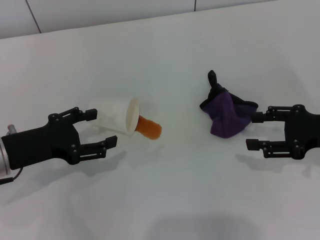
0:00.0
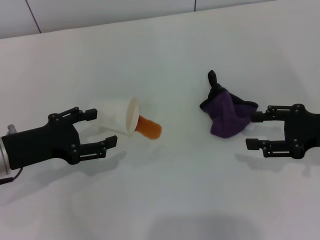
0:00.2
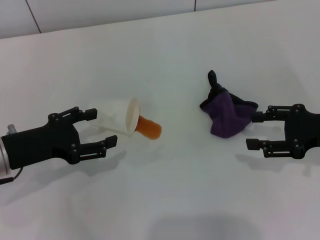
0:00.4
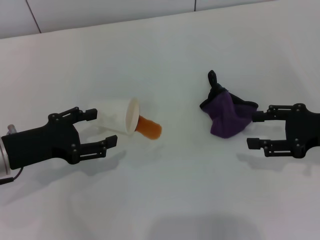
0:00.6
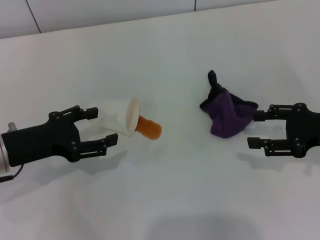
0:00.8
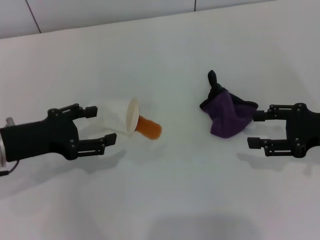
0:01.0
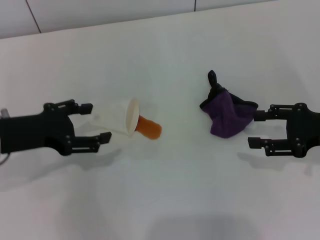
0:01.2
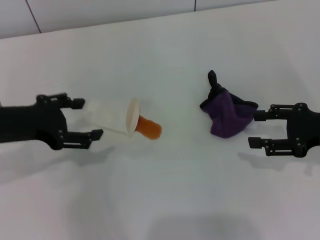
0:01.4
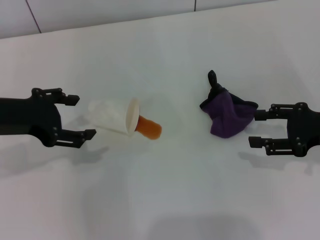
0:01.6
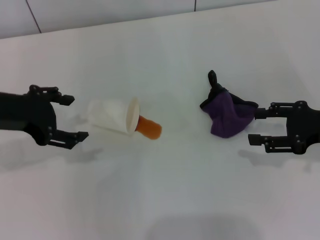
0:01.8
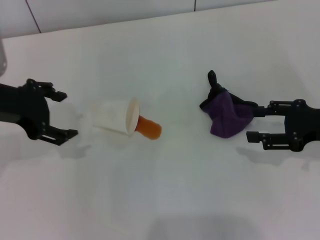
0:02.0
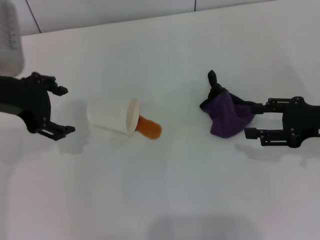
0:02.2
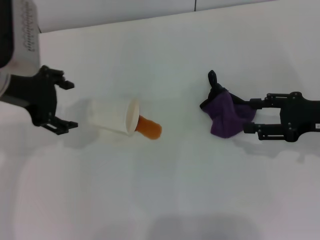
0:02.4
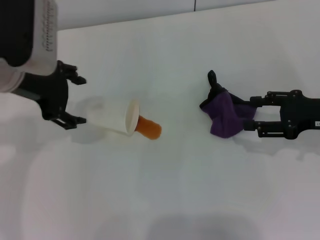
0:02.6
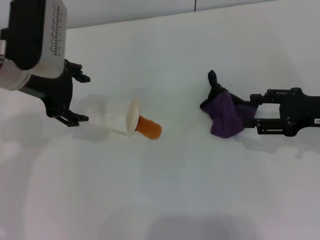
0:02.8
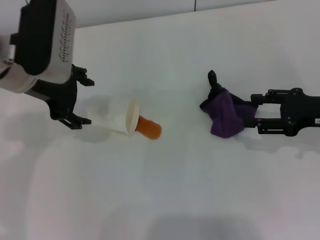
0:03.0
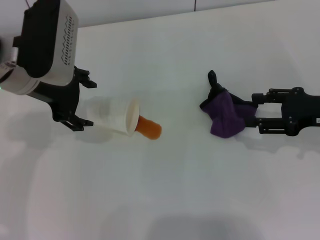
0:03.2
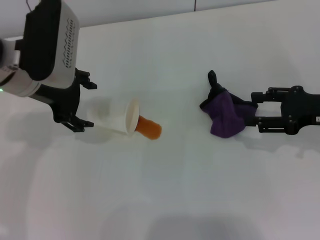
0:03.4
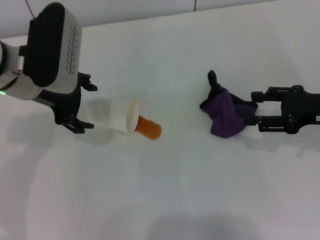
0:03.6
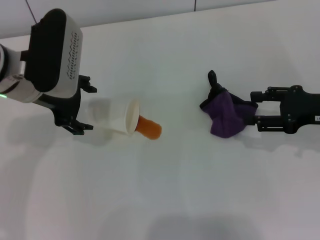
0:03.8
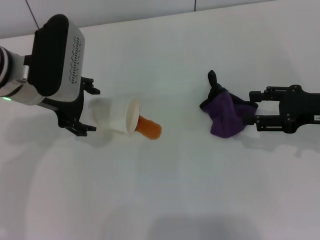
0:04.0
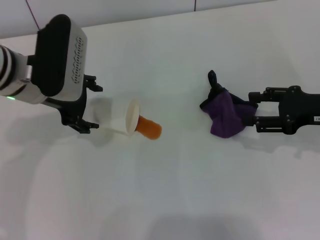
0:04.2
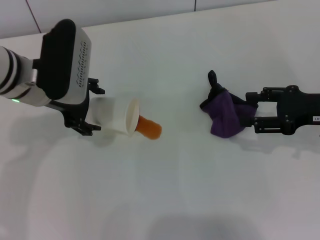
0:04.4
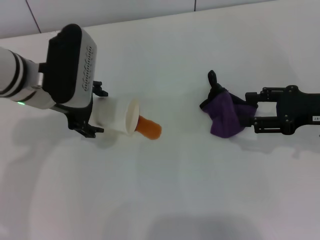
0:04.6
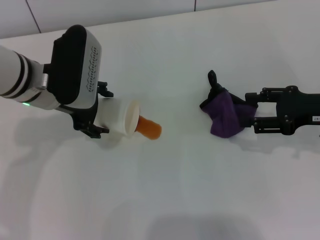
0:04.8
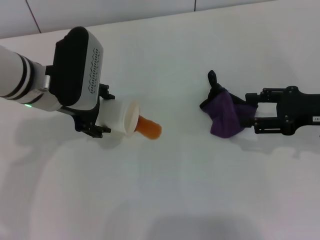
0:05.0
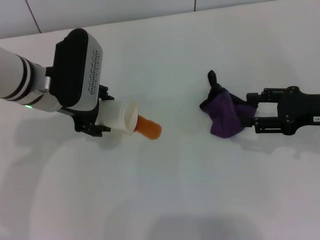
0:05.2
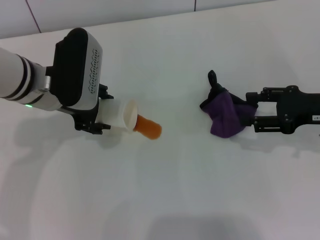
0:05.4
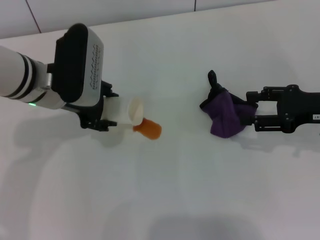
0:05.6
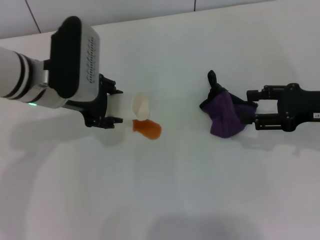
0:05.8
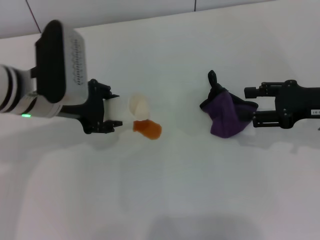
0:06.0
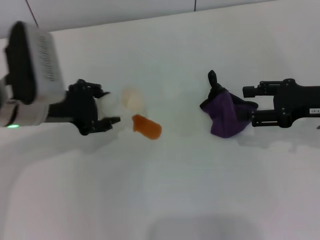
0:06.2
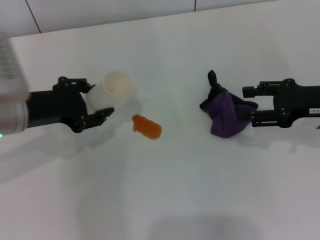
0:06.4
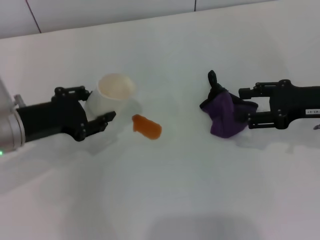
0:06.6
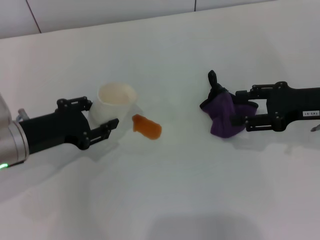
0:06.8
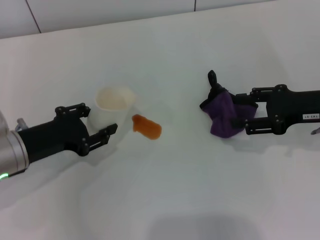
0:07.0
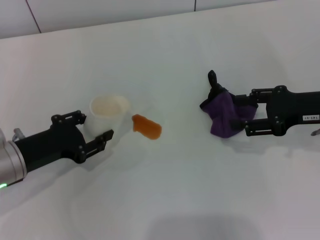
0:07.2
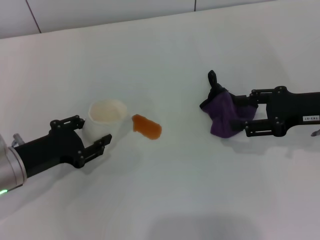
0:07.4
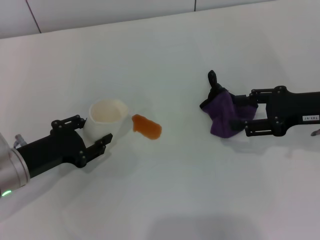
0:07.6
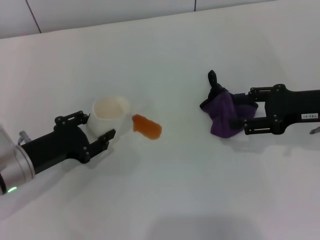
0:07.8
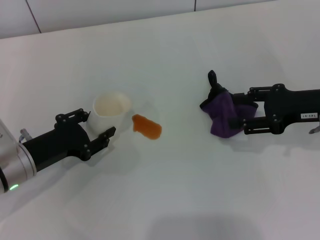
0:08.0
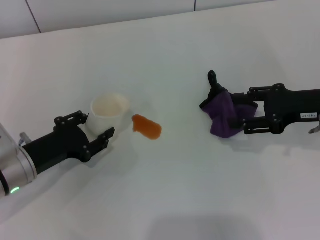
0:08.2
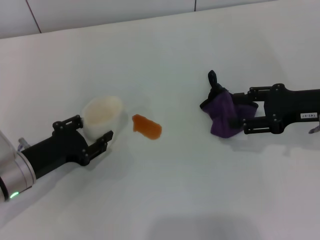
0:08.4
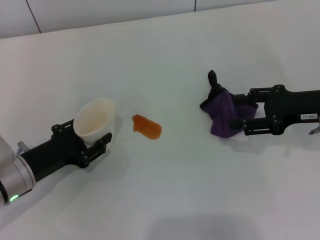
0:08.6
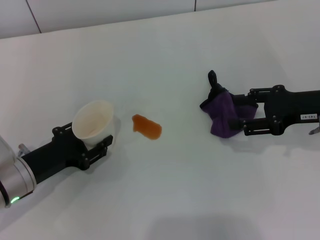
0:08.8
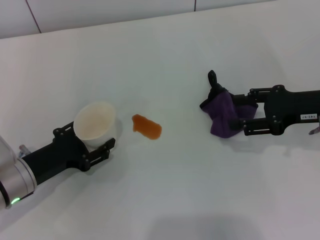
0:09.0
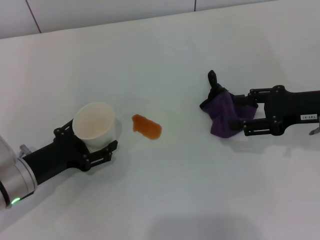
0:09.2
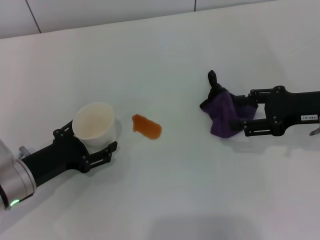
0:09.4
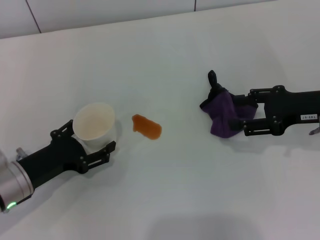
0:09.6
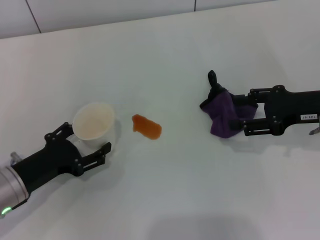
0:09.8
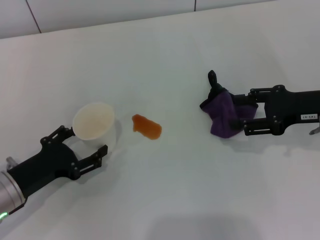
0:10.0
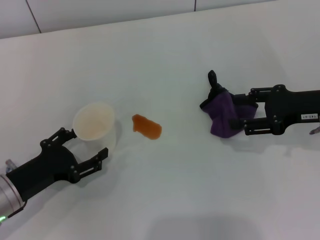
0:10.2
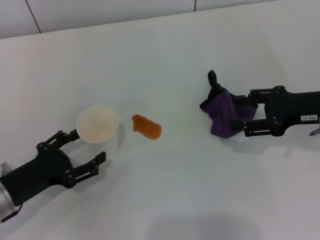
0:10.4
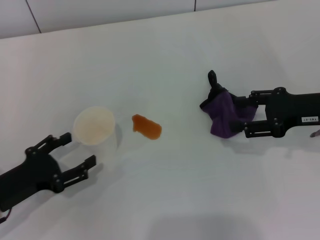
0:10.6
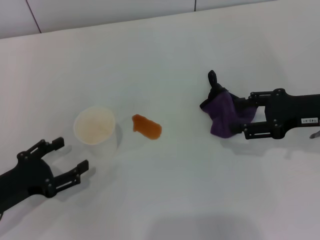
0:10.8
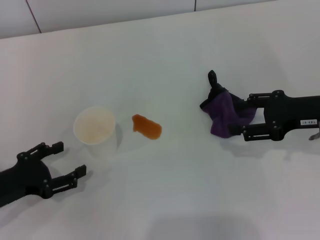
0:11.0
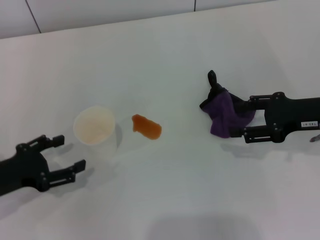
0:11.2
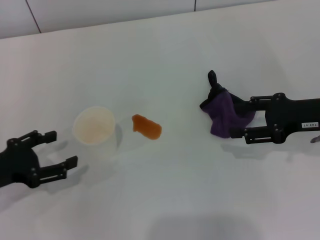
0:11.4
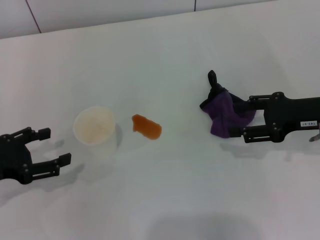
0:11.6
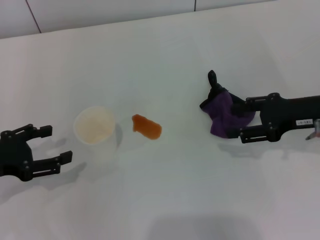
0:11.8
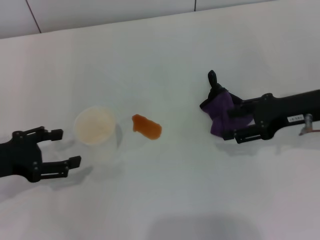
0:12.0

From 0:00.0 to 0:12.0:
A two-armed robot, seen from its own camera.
Step, from 0:00.0 to 0:05.4: Grasp the paper cup with the left gripper.
From 0:00.0 to 0:01.6: The left gripper is displaced upward by approximately 10 cm.
From 0:01.6 to 0:03.0: The left gripper moves to the right and forward, about 10 cm.
From 0:03.0 to 0:04.4: The grippers stay close to where they were, moving slightly.
From 0:04.4 to 0:06.0: The left gripper closes up.
From 0:06.0 to 0:07.6: The left gripper moves downward, backward and to the left, about 15 cm.
From 0:07.6 to 0:09.0: The grippers stay close to where they were, moving slightly.
From 0:09.0 to 0:10.4: The left gripper opens.
From 0:10.4 to 0:12.0: The left gripper moves upward, some 5 cm.

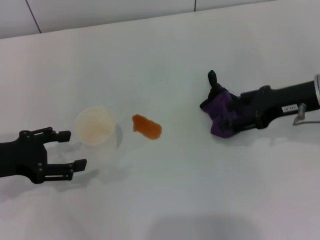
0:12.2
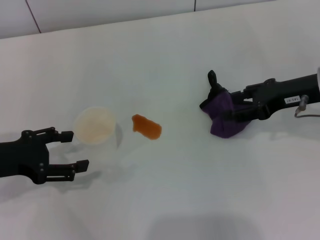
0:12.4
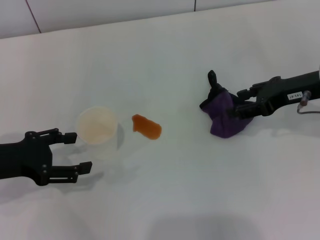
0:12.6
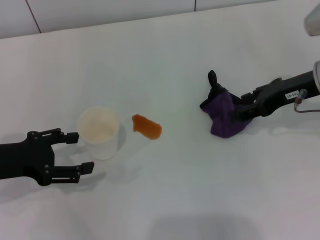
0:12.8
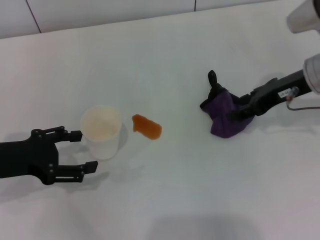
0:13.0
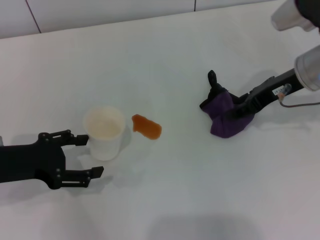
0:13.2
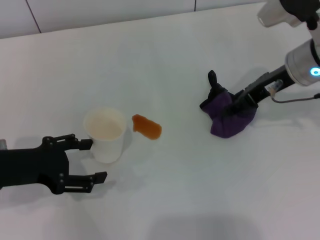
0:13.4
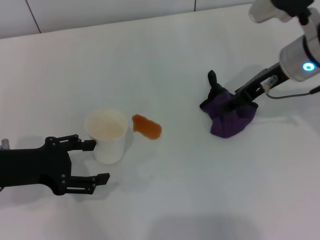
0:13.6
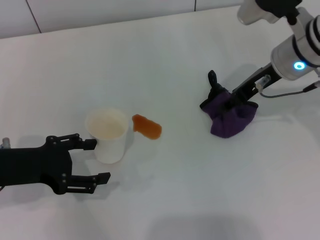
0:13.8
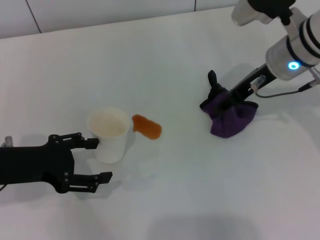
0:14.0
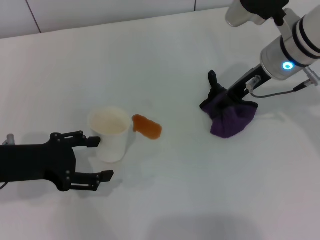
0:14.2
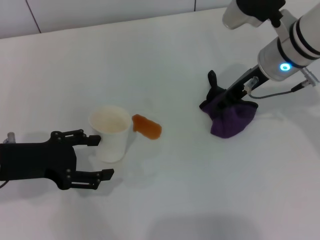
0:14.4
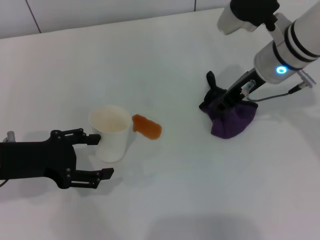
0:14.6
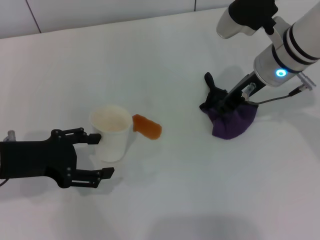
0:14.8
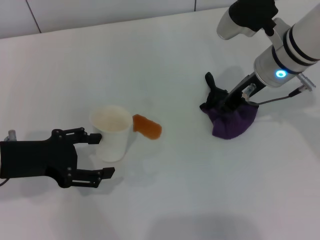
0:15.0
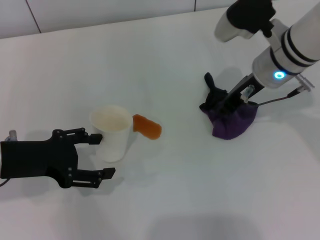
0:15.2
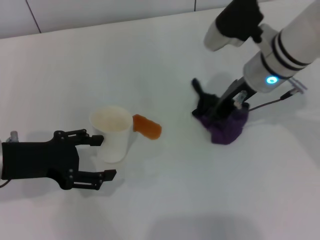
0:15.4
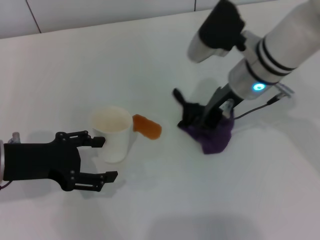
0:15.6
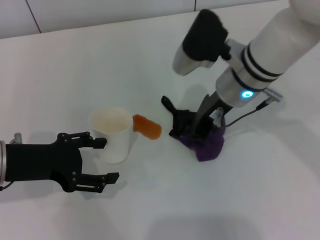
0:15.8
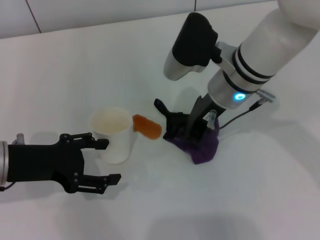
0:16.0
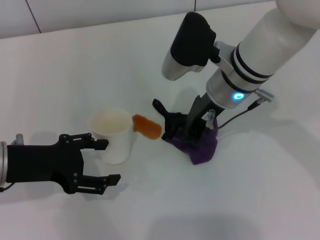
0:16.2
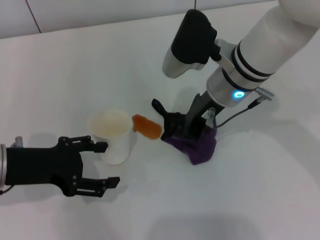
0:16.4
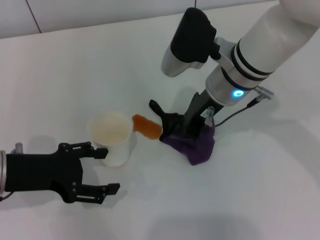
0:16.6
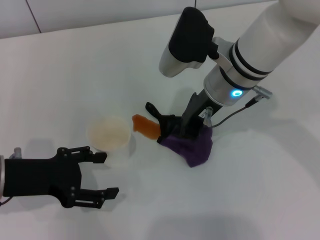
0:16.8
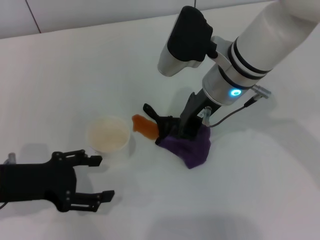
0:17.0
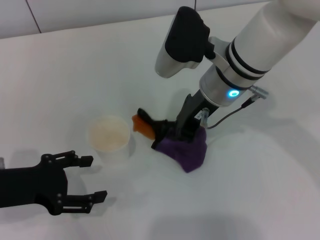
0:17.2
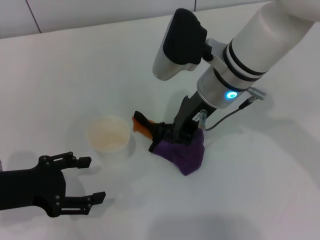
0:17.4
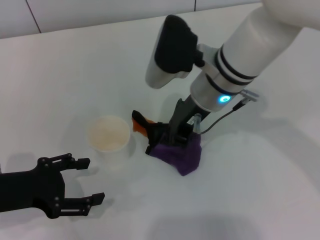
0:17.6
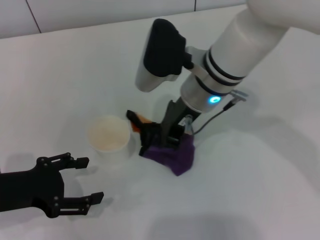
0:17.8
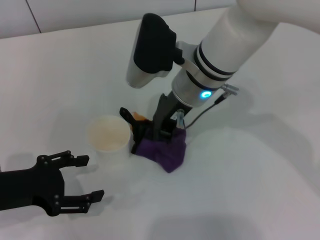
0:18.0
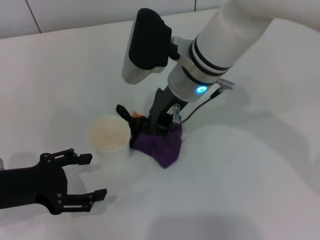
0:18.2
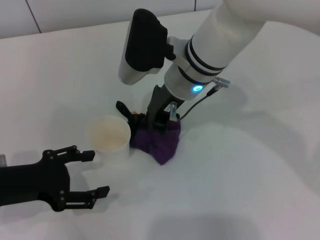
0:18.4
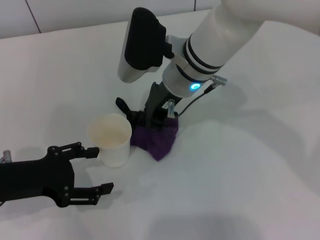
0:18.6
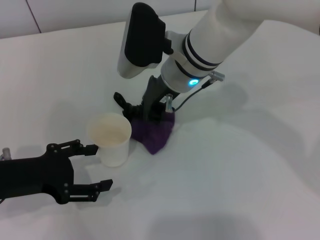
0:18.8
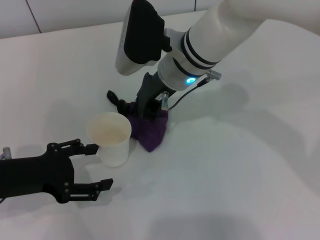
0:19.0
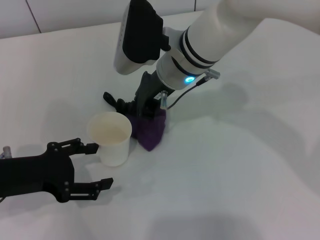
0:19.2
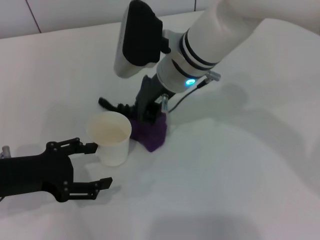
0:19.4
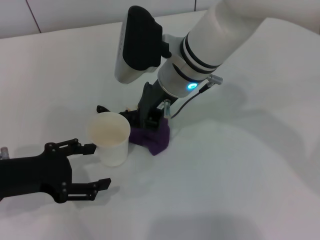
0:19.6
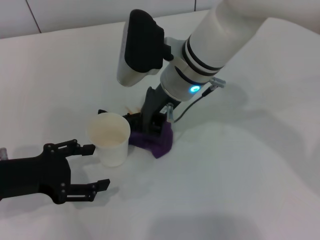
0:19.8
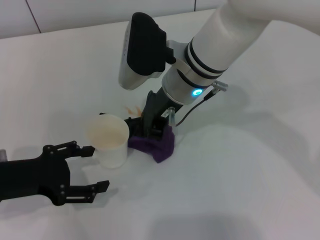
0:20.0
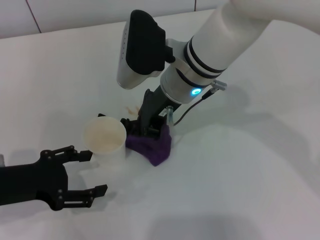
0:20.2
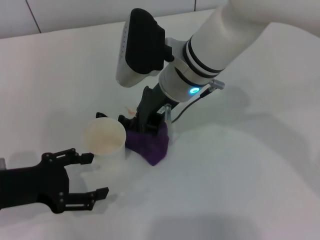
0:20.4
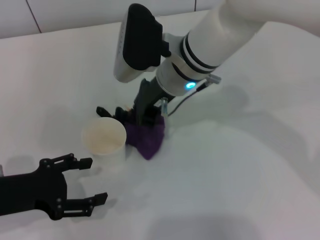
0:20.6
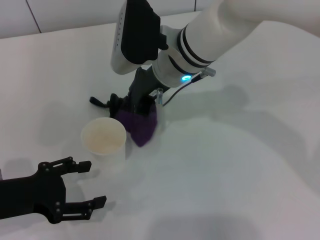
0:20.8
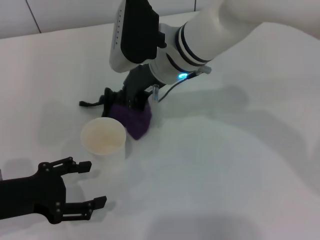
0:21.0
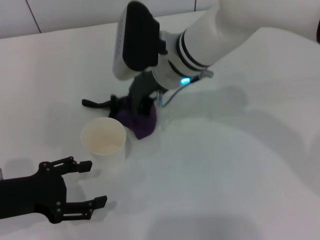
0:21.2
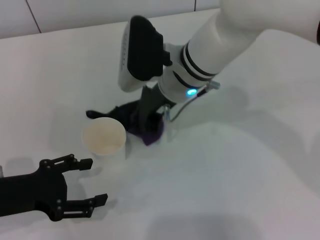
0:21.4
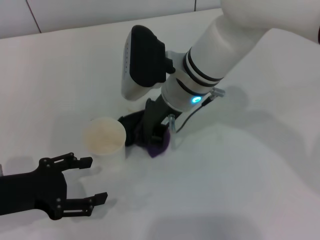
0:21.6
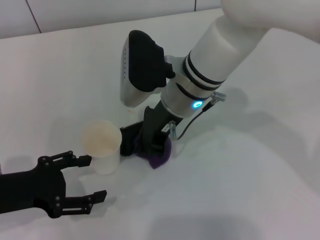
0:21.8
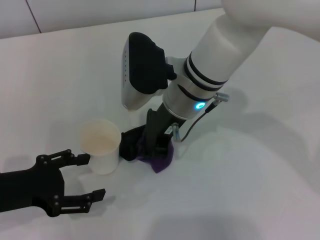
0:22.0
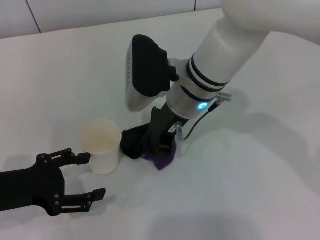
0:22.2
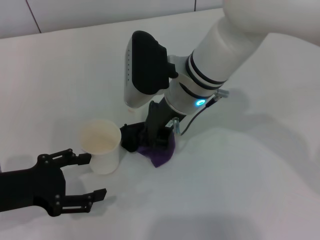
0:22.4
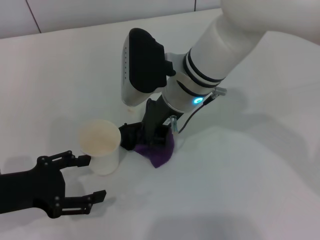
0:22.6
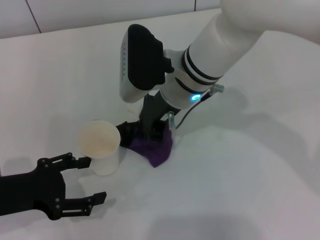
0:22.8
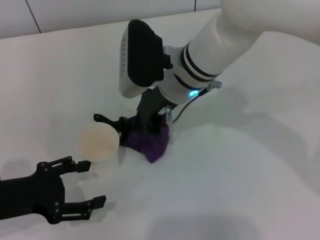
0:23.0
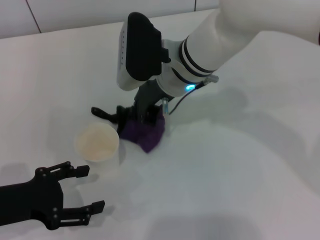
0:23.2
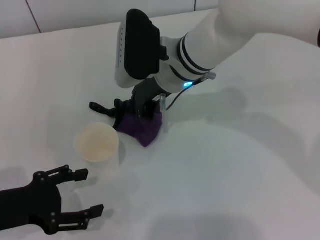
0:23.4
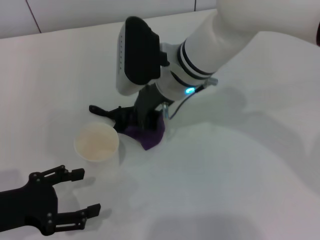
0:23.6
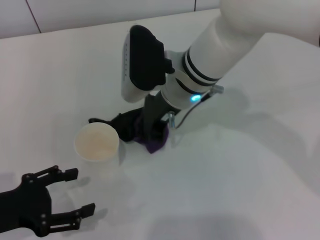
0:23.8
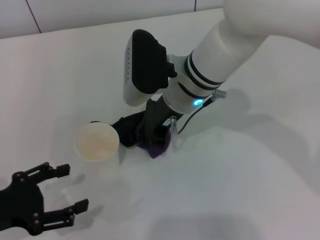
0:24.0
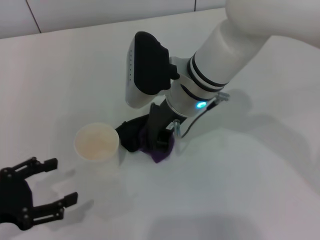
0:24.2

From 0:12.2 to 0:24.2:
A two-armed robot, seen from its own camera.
Step, from 0:12.4 to 0:15.2: Grasp the rag with the right gripper.
From 0:12.2 to 0:13.8: The right gripper shifts roughly 10 cm to the left and forward.
From 0:13.8 to 0:15.2: The right gripper closes its fingers.
From 0:15.2 to 0:16.6: The right gripper goes approximately 5 cm to the left.
From 0:16.6 to 0:18.2: The right gripper is displaced to the left by roughly 5 cm.
From 0:18.2 to 0:22.6: There are only small adjustments of the grippers.
From 0:22.6 to 0:24.2: The left gripper changes place by roughly 5 cm.
